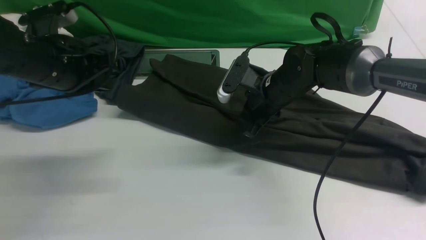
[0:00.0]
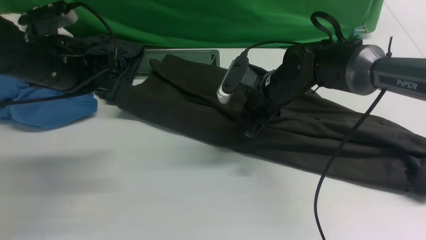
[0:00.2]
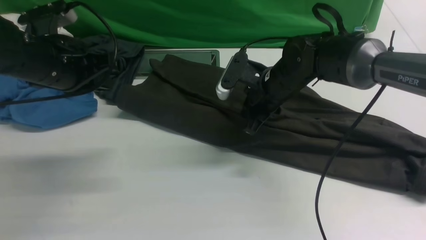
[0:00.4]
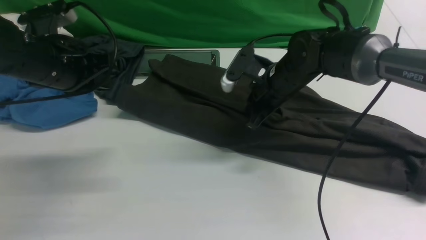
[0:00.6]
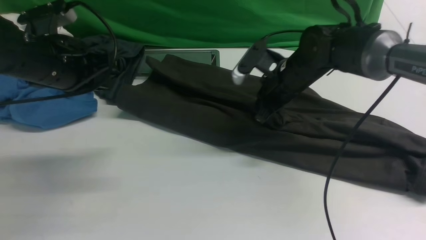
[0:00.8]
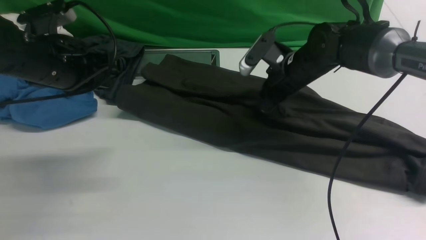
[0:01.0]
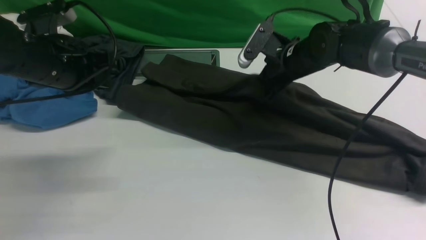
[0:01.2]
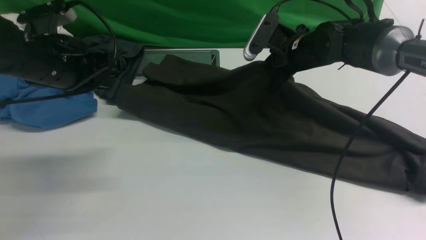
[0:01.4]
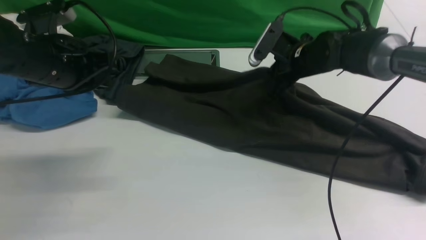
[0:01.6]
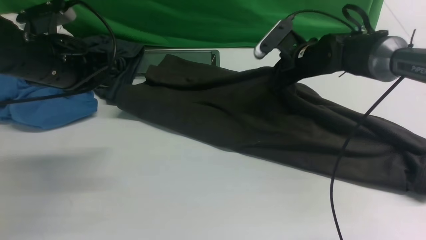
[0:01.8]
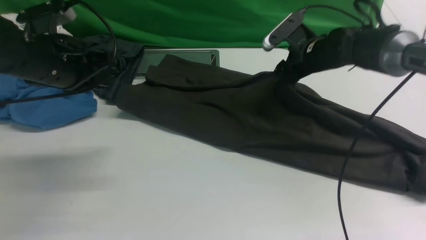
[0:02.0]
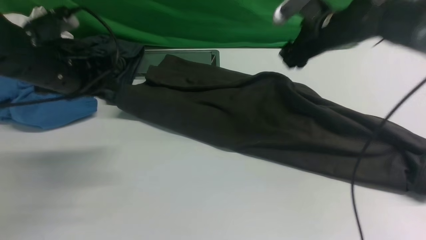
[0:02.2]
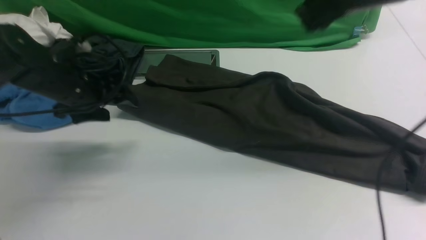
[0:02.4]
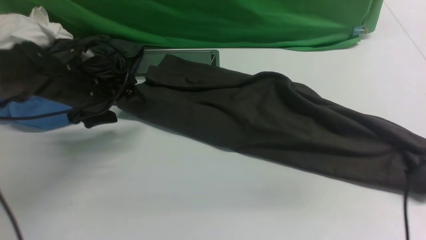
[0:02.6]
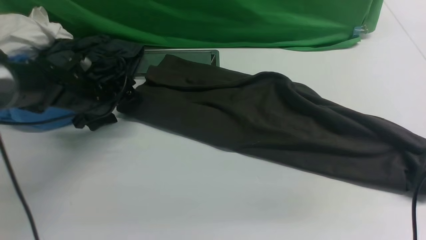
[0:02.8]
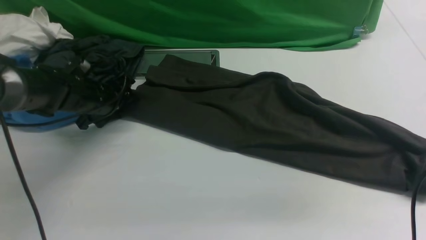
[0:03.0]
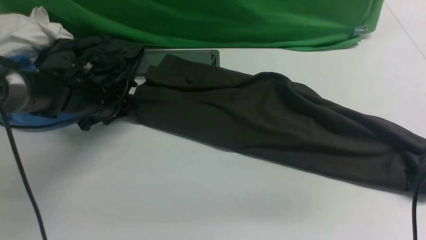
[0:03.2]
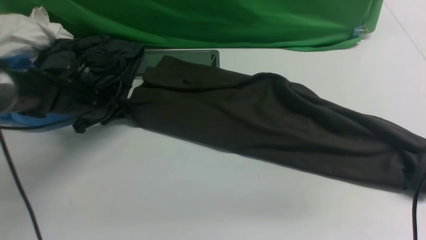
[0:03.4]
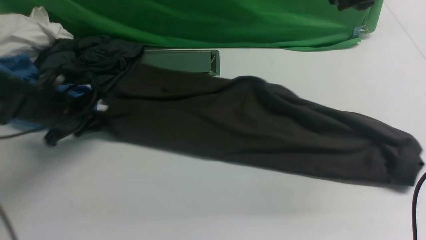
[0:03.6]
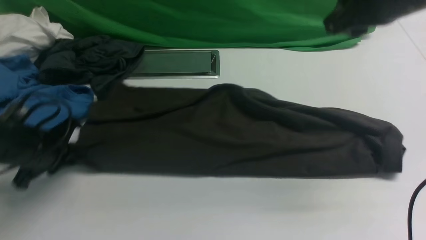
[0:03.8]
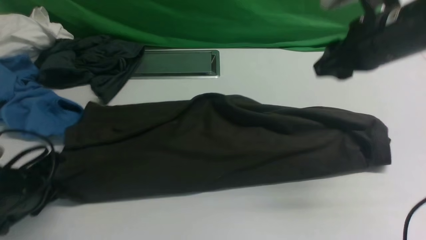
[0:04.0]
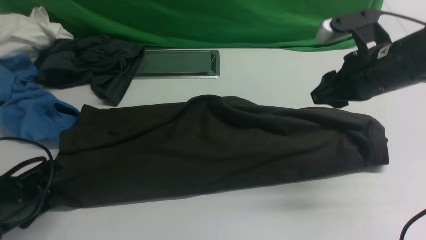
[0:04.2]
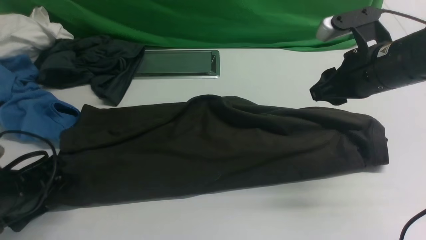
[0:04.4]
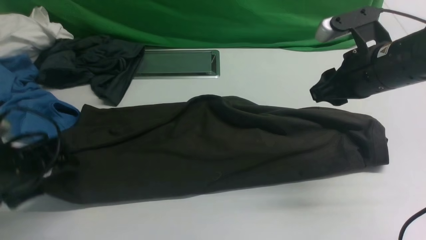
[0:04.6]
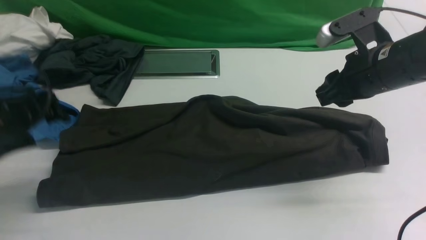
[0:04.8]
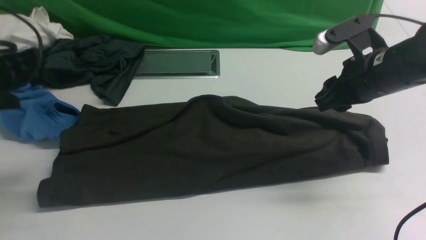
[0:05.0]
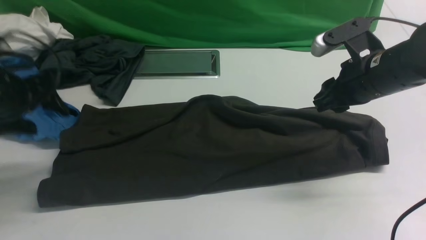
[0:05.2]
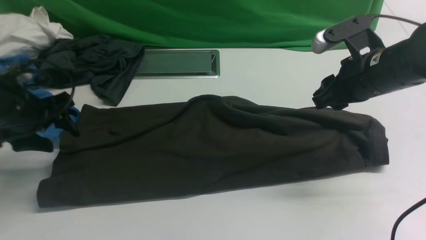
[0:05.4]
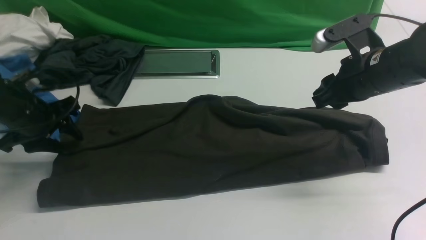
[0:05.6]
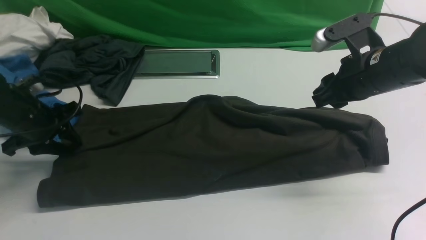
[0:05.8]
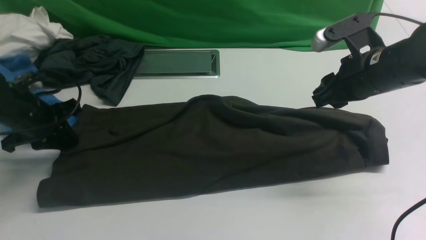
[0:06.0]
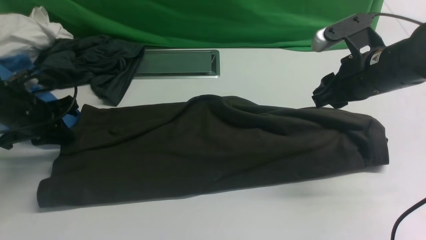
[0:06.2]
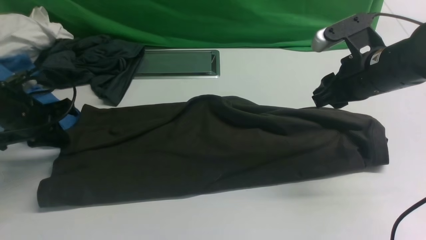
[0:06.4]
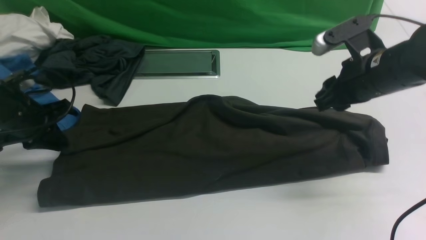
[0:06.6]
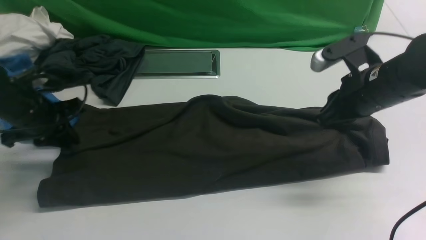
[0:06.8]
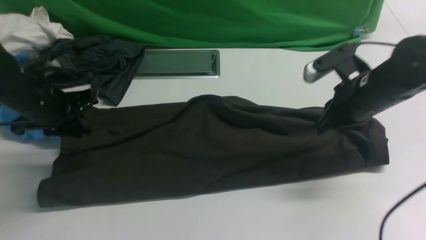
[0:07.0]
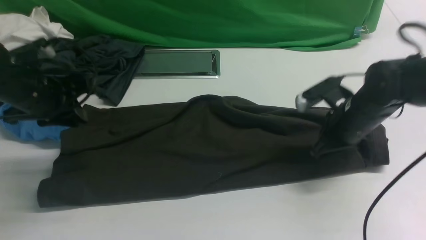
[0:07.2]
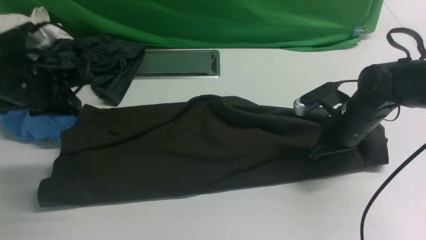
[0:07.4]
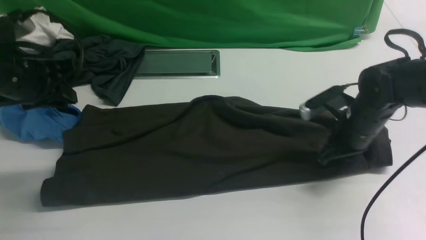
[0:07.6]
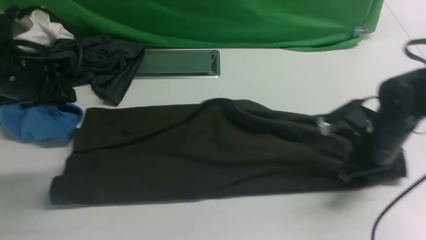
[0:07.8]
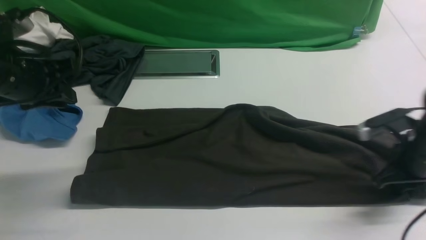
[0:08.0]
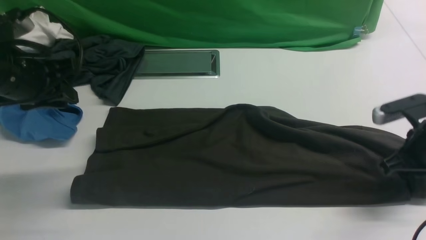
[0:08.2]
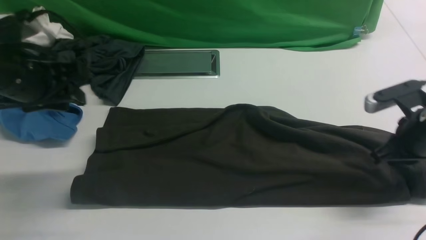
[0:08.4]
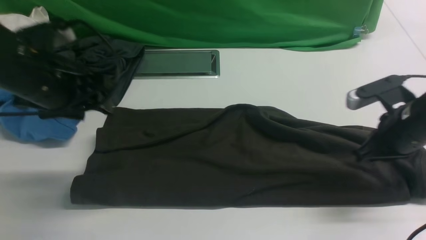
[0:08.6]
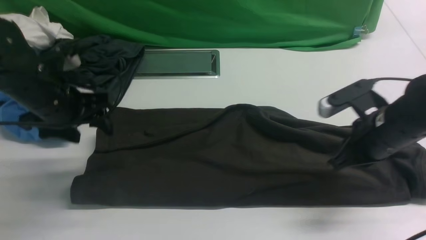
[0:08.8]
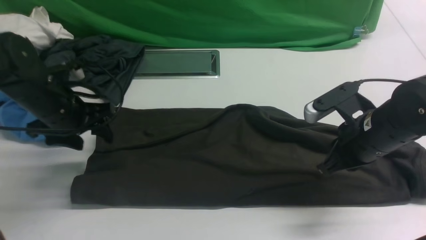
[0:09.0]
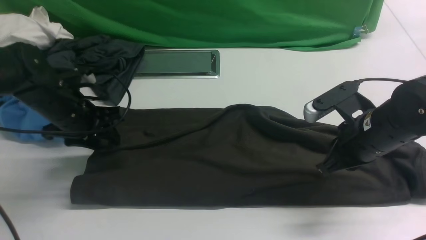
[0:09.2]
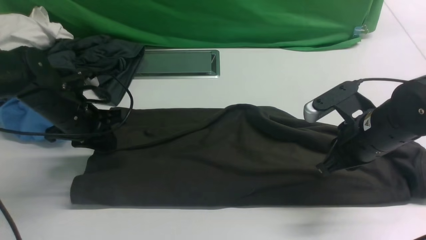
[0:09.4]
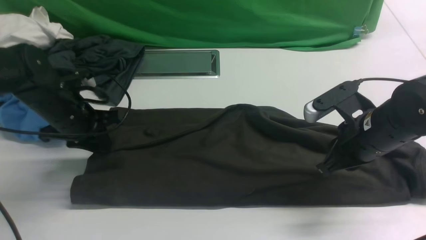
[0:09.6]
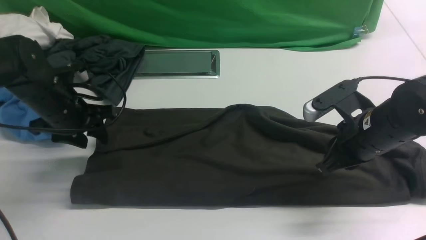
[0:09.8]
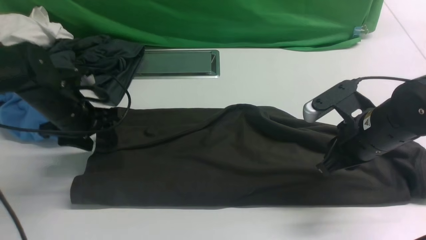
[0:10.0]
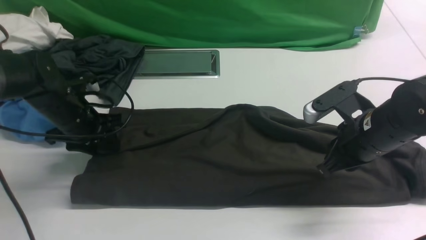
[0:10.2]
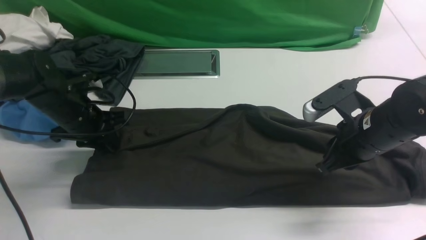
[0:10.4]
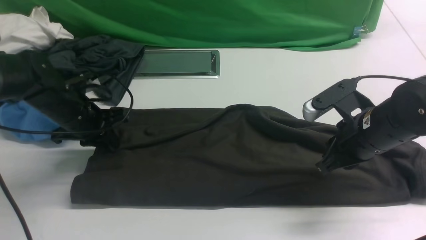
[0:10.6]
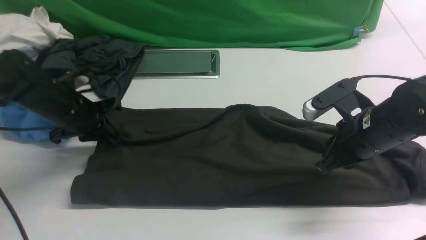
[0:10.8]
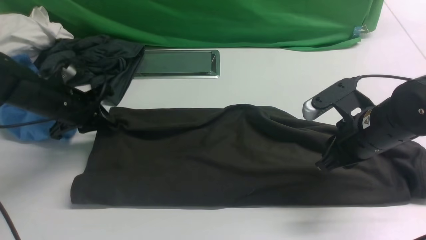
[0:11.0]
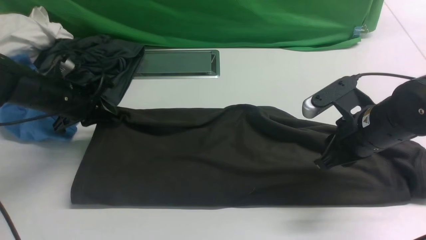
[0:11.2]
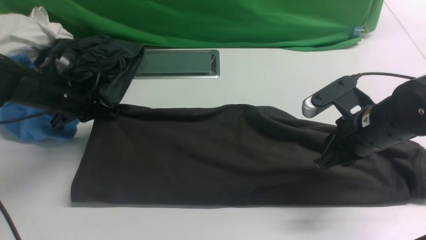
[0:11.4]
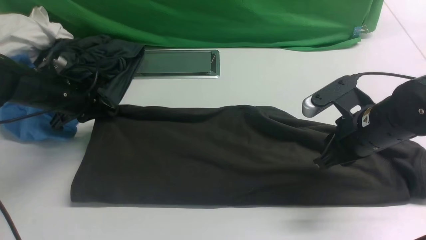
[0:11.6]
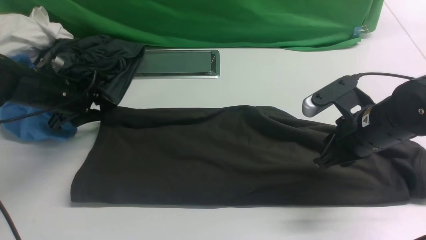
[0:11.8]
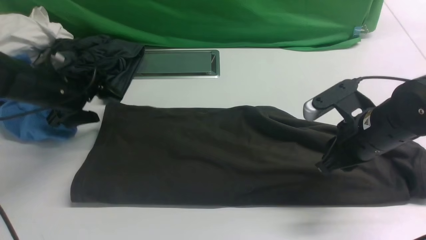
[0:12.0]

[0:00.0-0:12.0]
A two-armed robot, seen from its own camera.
0:00.0 to 0:01.6: The right gripper goes roughly 10 cm forward and to the right.
0:01.6 to 0:03.0: The right gripper heads upward and backward, covering some 25 cm, and opens. The left gripper shifts about 15 cm downward and forward, and opens its fingers.
0:03.0 to 0:04.4: The right gripper heads downward, covering about 15 cm. Meanwhile the left gripper shifts roughly 20 cm backward, and closes, then reopens.
0:04.4 to 0:06.0: The left gripper heads forward, covering roughly 15 cm, and closes up.
0:06.0 to 0:07.6: The right gripper shifts approximately 10 cm downward, and closes; the left gripper heads upward and to the right, covering some 10 cm.
0:07.6 to 0:09.0: The left gripper goes about 10 cm downward, and opens up; the right gripper shifts about 5 cm upward and backward, and goes to the right and returns, approximately 5 cm each way.
0:09.0 to 0:10.4: The left gripper closes up.
0:10.4 to 0:12.0: The left gripper ends up approximately 5 cm from where it was, and opens its fingers.

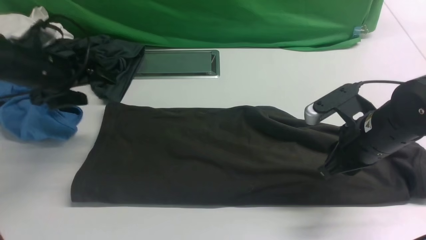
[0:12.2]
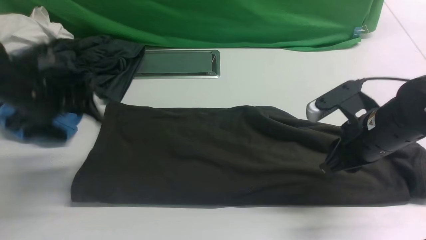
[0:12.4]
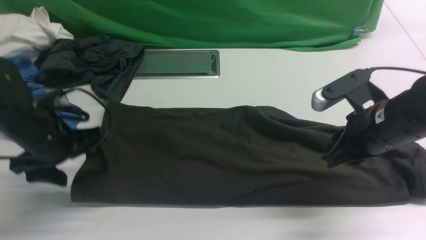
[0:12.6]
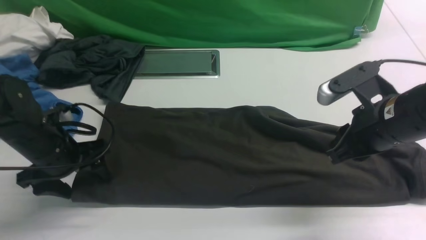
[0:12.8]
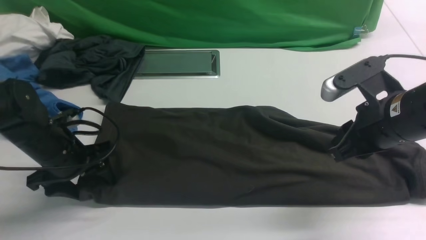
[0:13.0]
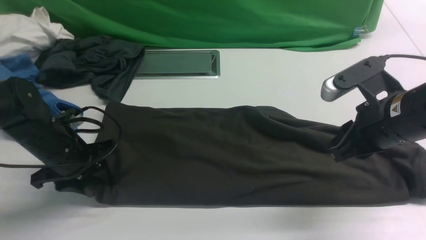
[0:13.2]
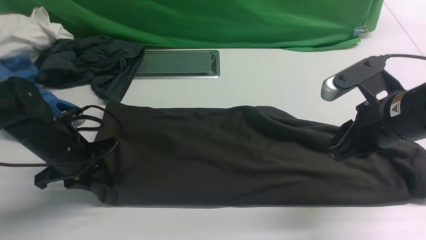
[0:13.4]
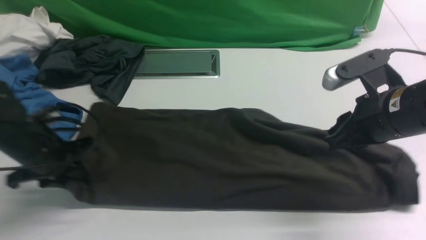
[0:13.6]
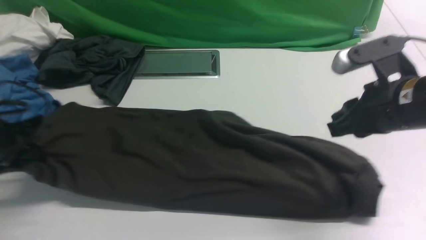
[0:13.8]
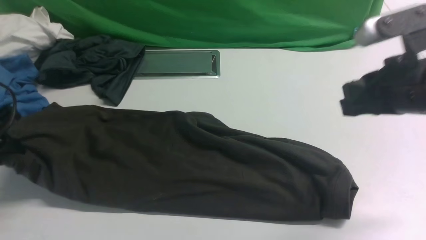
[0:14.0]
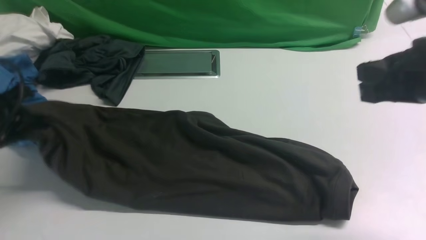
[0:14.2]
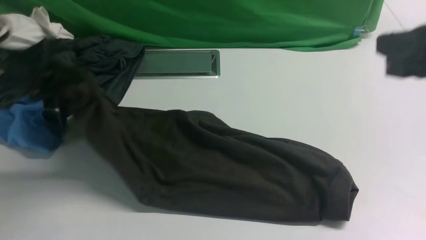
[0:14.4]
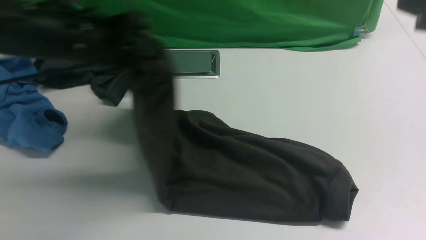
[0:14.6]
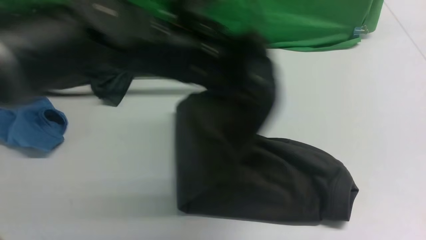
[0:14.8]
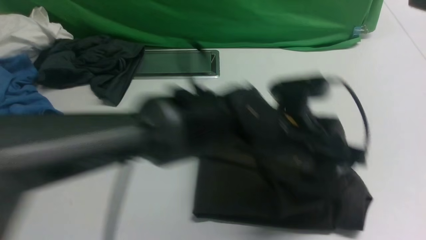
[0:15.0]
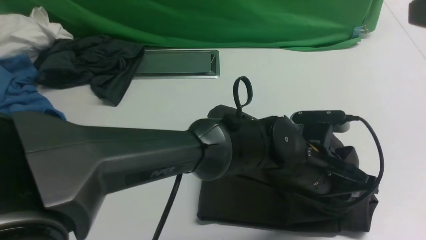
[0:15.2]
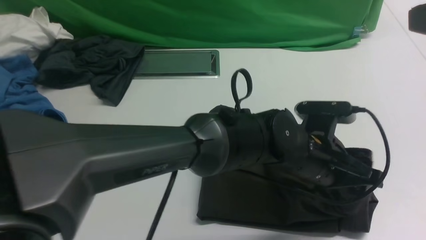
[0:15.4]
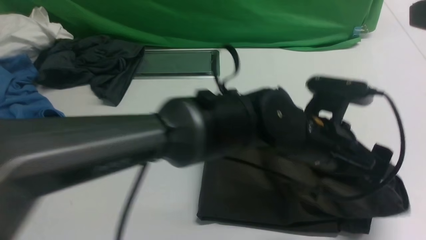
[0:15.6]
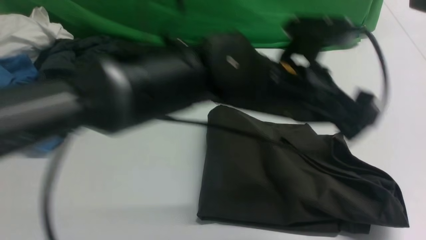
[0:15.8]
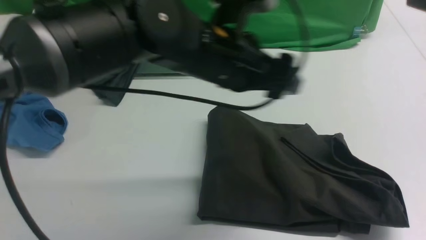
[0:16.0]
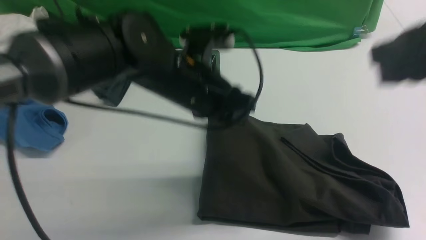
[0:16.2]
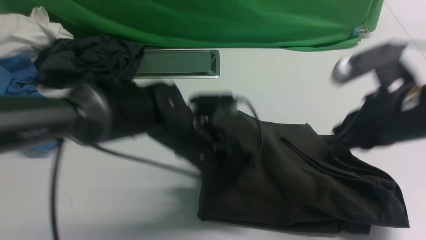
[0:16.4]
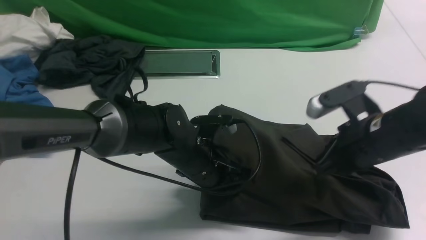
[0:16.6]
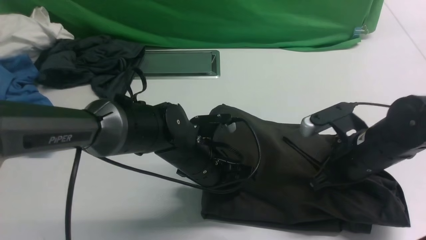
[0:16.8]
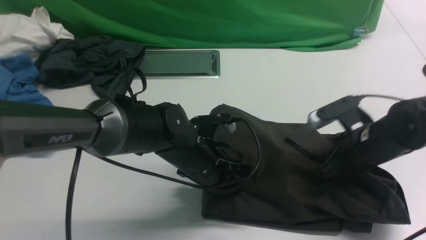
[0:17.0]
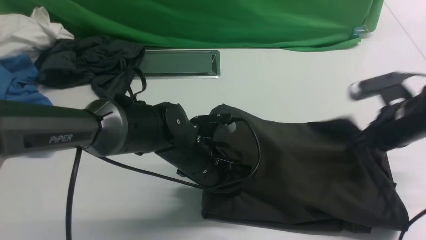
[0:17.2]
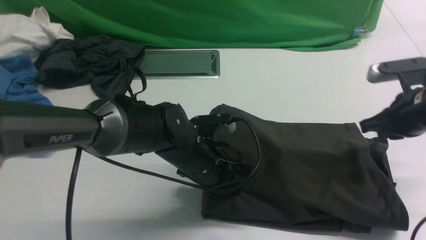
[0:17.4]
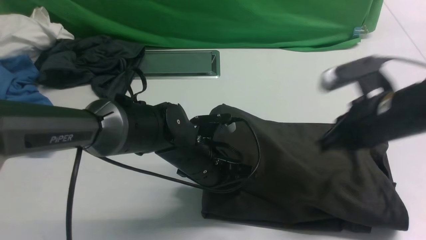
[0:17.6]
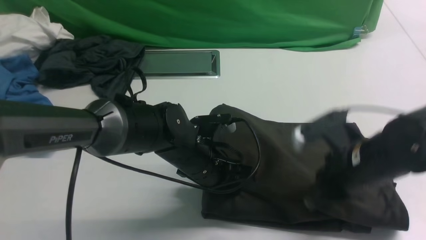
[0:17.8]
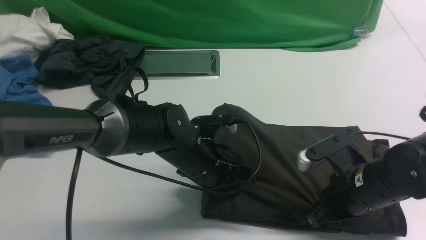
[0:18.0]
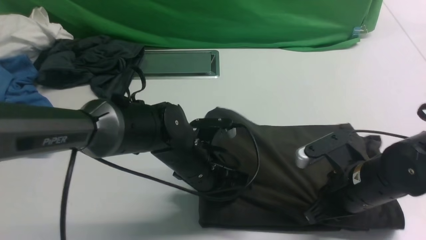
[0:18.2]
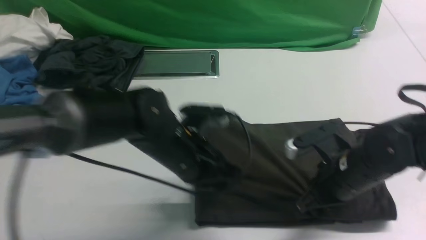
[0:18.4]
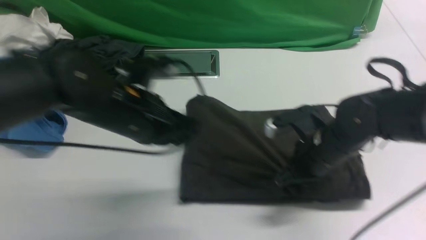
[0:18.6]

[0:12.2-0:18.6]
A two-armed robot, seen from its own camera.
Step, 0:14.0 to 0:15.6: Drag the left edge of the fabric to the left with your left arm and fold it to the right edge.
0:12.2 to 0:13.8: The right gripper is displaced upward by approximately 10 cm. The left gripper goes approximately 10 cm backward and to the left, and closes.
0:13.8 to 0:15.4: The right gripper shifts some 15 cm upward and backward. The left gripper goes approximately 40 cm to the right, and opens.
0:15.4 to 0:17.0: The left gripper goes approximately 15 cm to the left and downward, and closes its fingers, while the right gripper is displaced downward and forward by some 25 cm.
0:17.0 to 0:18.6: The left gripper heads upward and to the left, covering approximately 15 cm. The right gripper is displaced to the left by some 10 cm.
